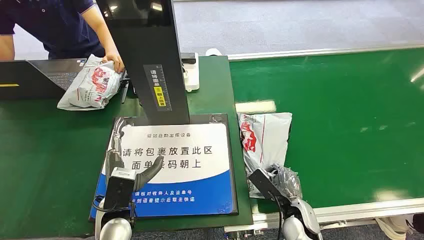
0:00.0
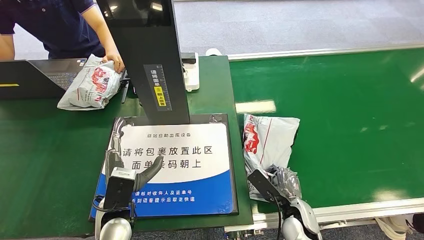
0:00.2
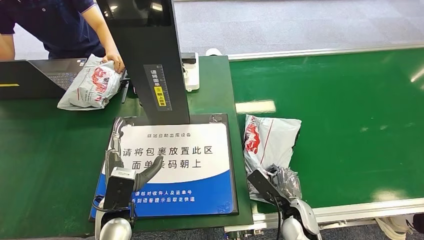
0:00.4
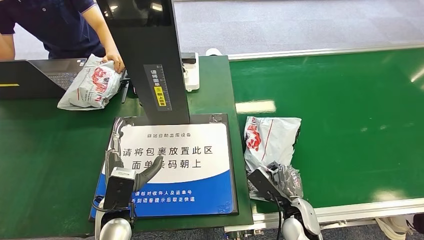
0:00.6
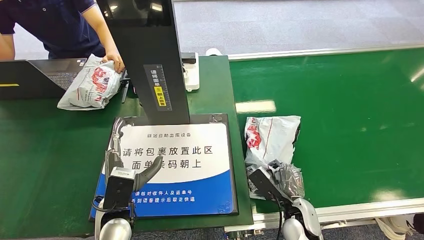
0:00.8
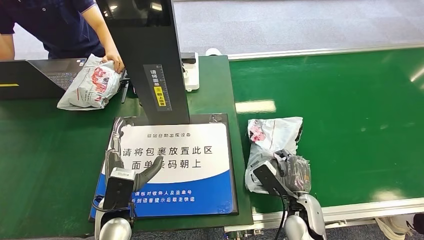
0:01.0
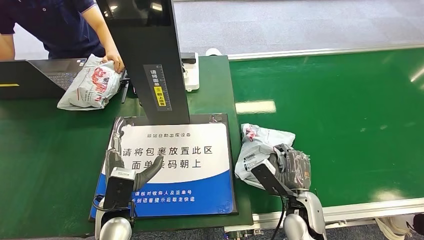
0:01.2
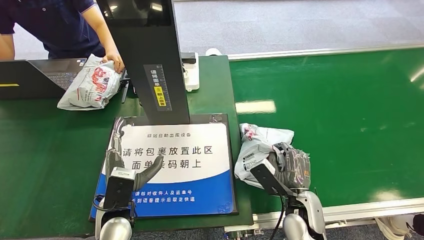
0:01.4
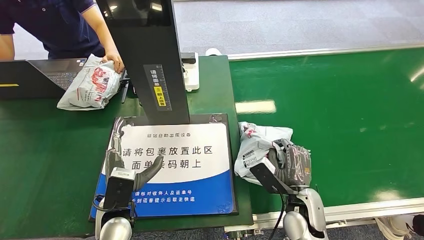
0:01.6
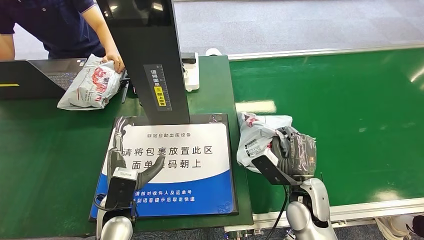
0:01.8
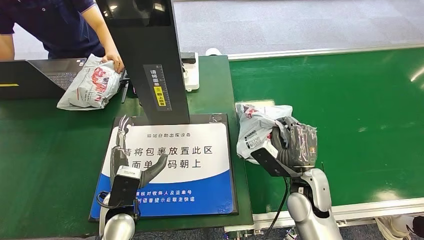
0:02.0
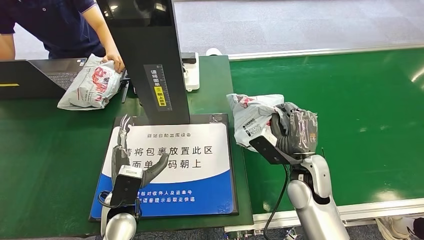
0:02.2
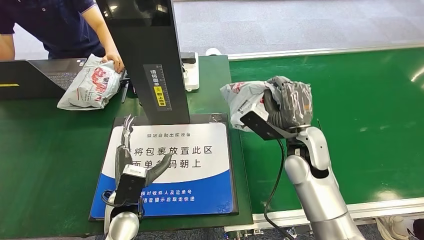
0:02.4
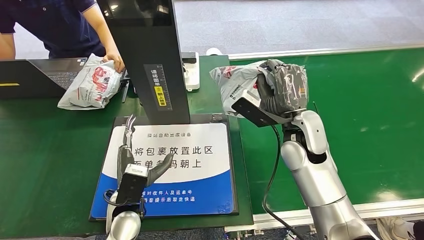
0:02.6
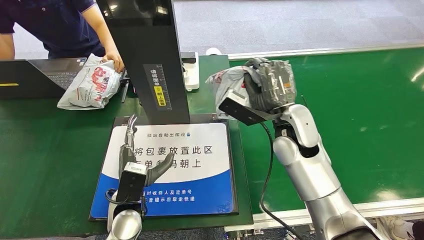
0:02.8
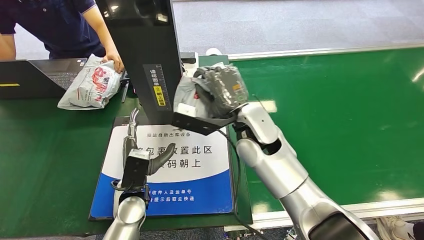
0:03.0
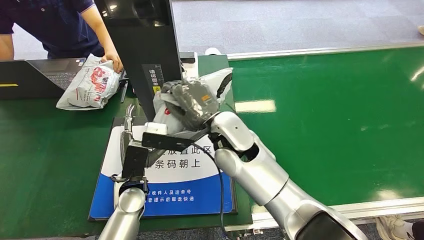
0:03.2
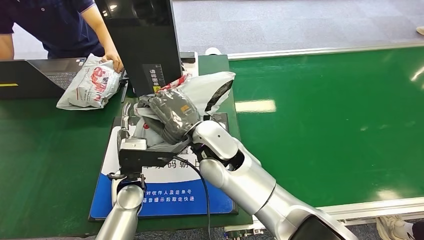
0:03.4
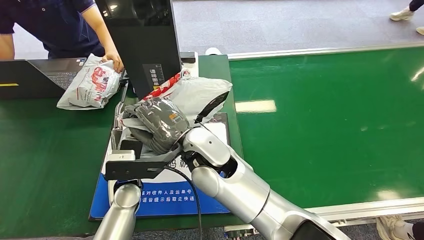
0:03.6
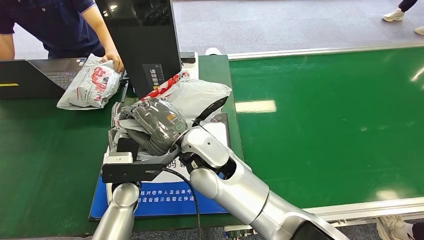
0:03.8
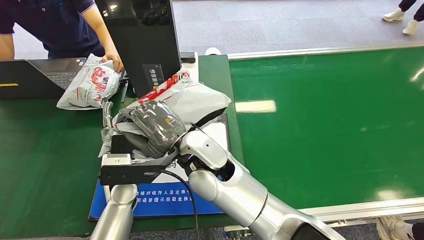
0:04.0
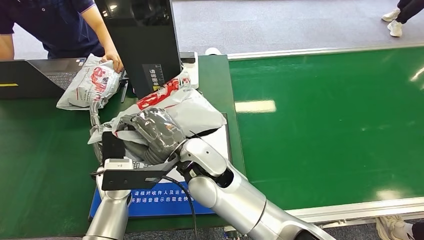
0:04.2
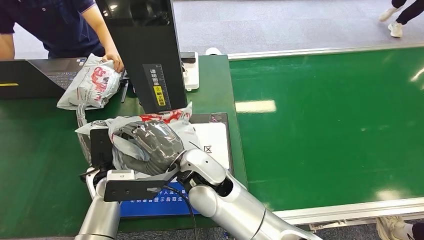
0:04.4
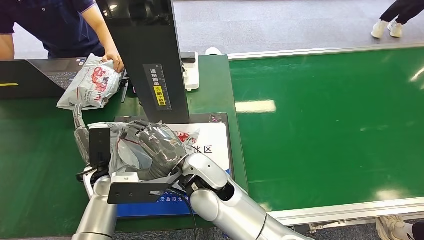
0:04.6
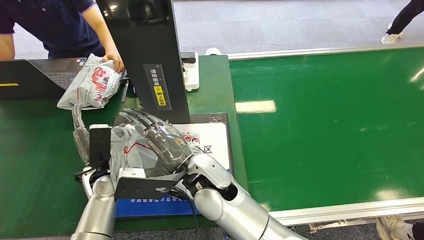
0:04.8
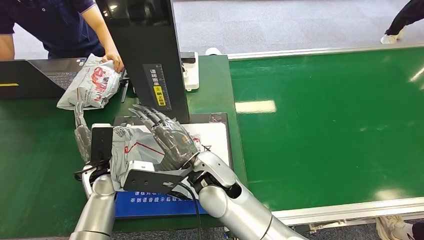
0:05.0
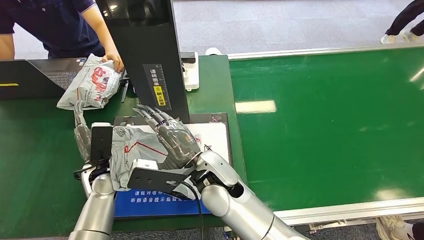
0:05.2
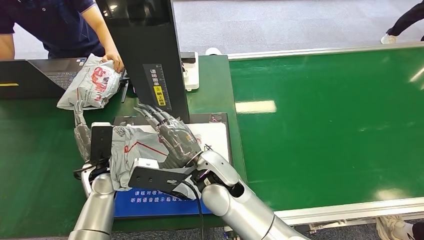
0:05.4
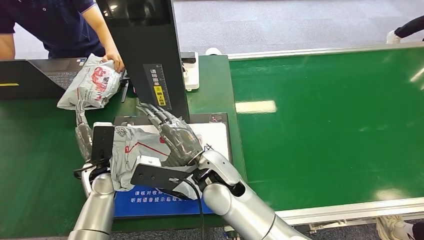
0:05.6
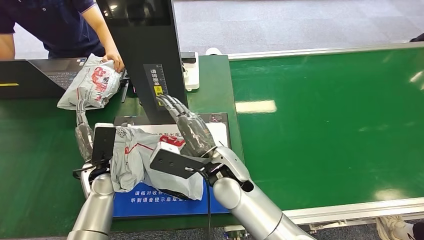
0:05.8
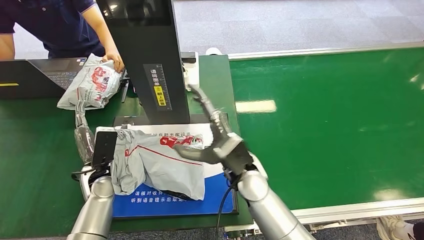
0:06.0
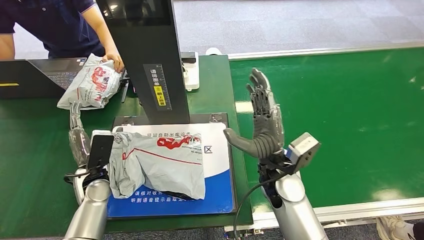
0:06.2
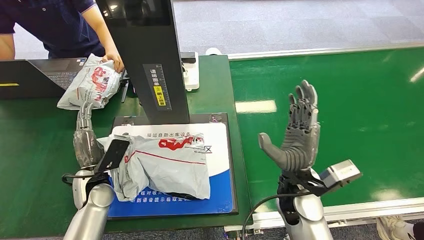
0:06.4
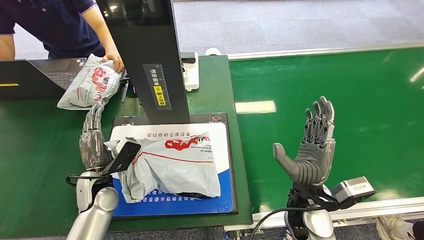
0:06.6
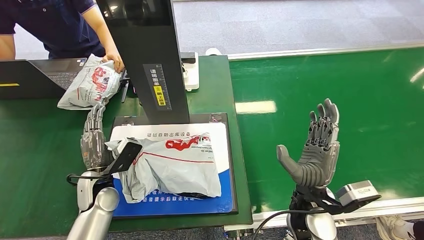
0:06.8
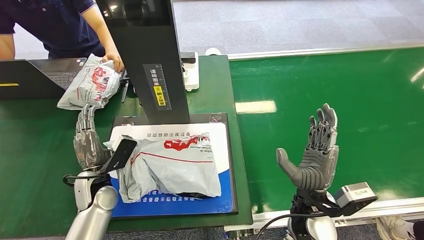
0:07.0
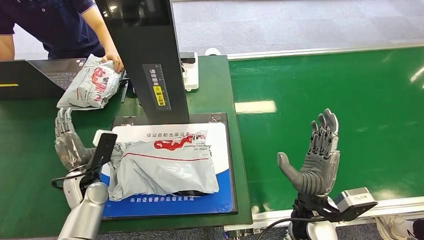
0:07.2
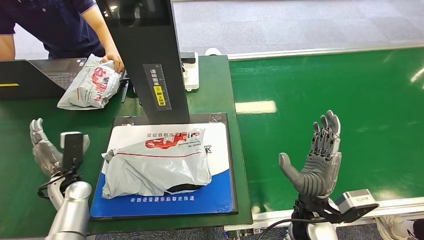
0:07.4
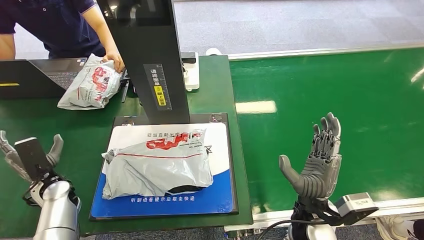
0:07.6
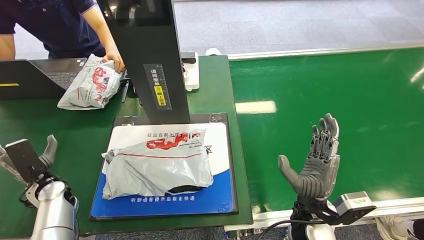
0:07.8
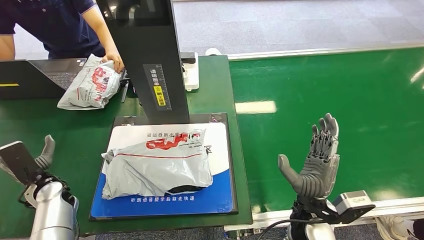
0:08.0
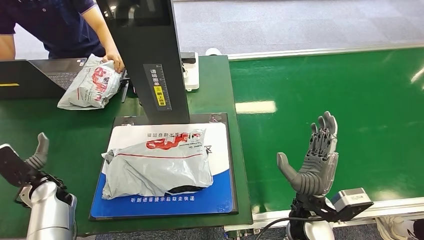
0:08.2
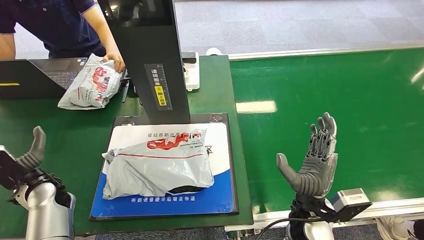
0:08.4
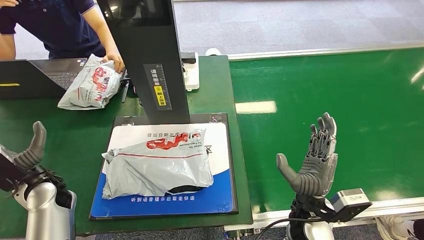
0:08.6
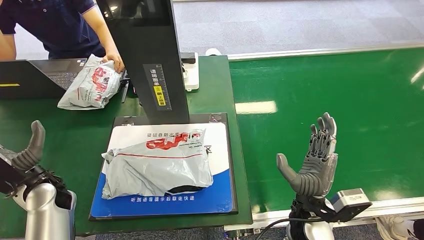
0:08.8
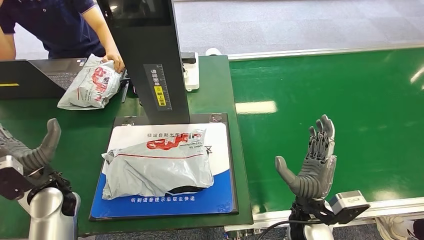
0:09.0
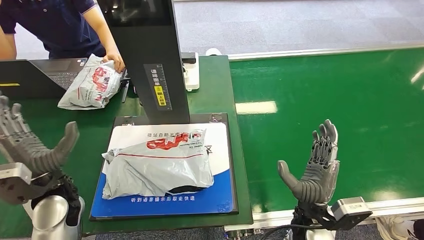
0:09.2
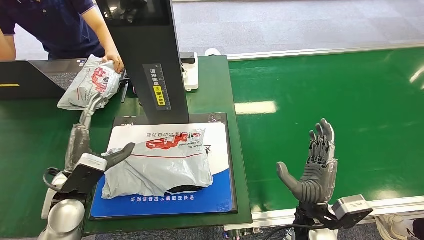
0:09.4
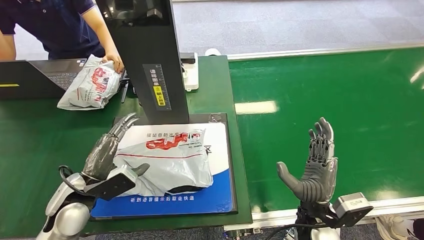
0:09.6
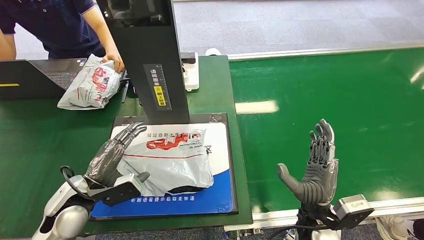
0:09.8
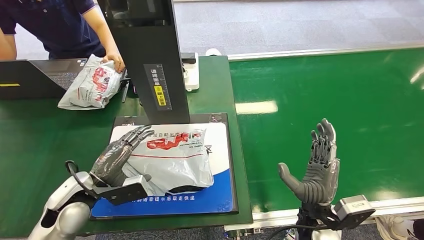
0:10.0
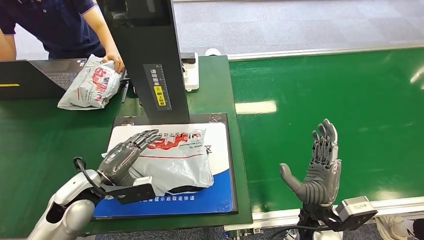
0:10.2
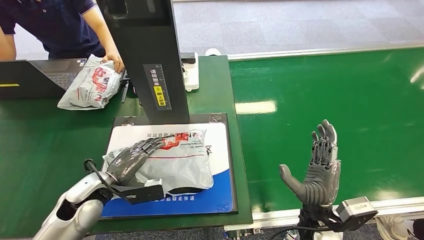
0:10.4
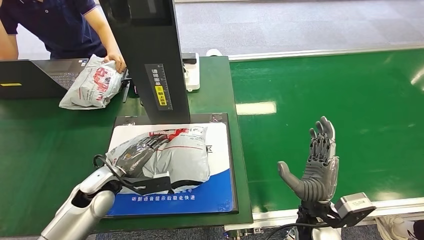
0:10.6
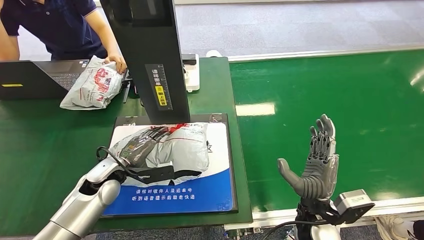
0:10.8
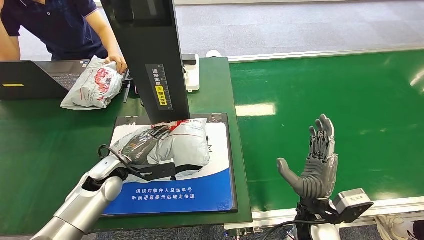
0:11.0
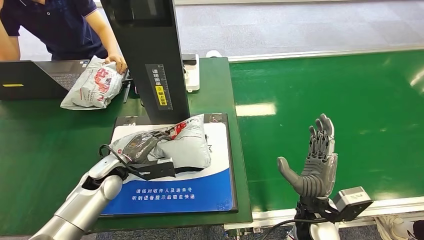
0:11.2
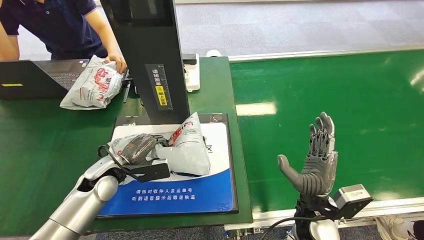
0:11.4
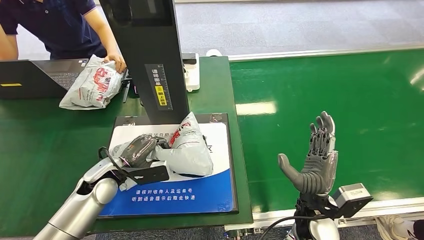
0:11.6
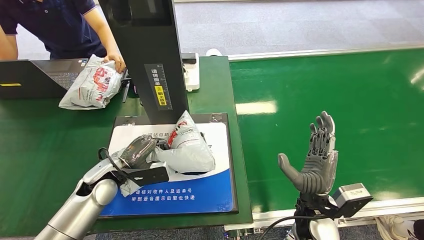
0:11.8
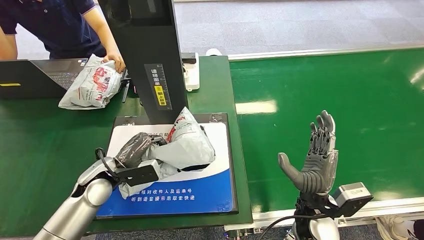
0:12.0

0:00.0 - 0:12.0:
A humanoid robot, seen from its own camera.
Task of the whole recording: Weigh the package on the weighing device and place it in the left basket.
Step, 0:00.0 - 0:01.8: Pick up the package from the conveyor belt.
Step, 0:02.0 - 0:06.6: Place the package onto the inbound machine.
0:04.4 - 0:06.0: The right hand is displaced to the right by roughly 10 cm.
0:07.6 - 0:09.0: The left hand heads upward, covering roughly 10 cm.
0:09.0 - 0:10.4: The left hand moves to the right, approximately 5 cm.

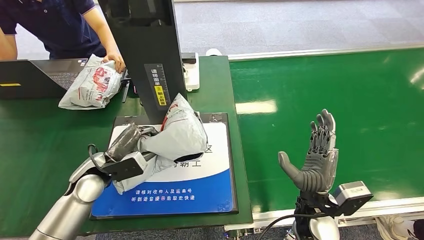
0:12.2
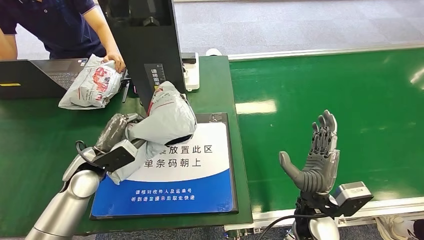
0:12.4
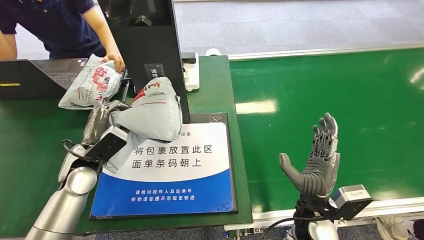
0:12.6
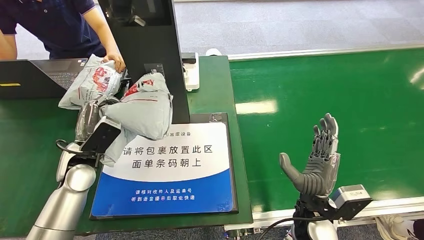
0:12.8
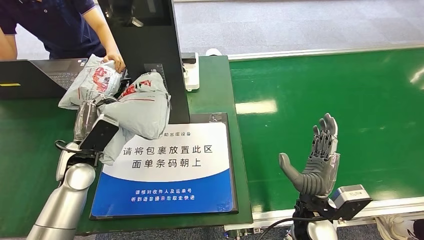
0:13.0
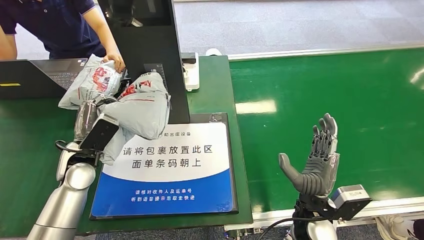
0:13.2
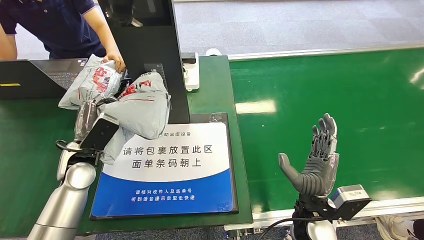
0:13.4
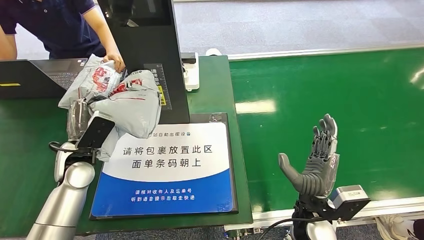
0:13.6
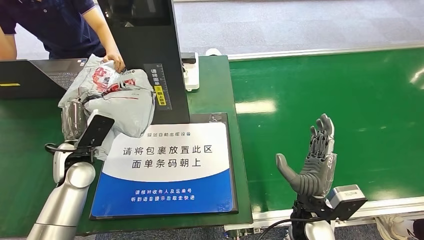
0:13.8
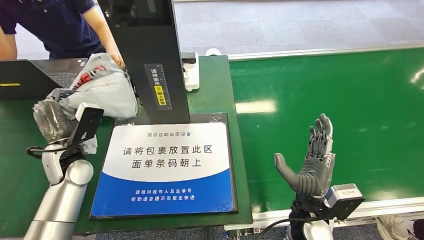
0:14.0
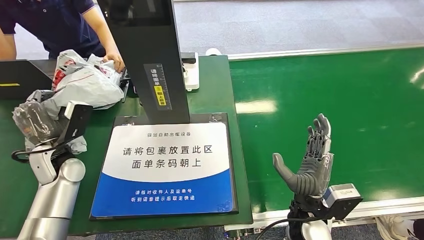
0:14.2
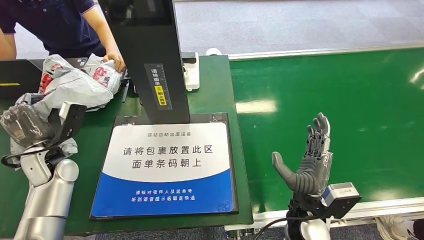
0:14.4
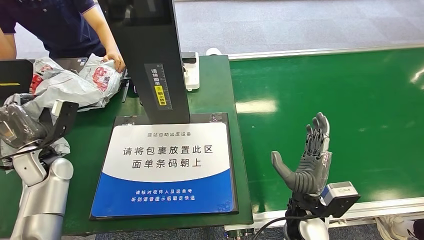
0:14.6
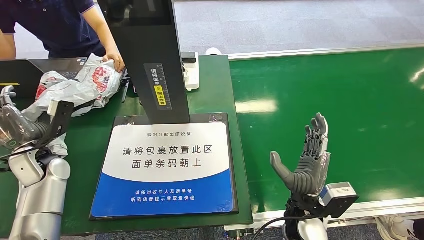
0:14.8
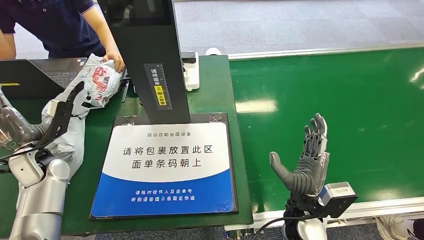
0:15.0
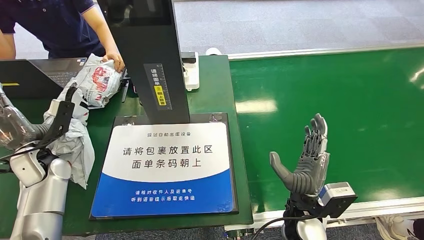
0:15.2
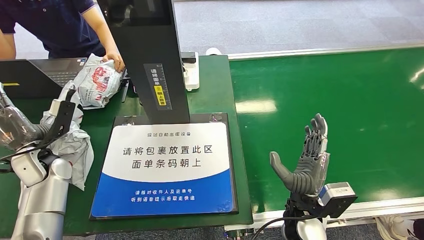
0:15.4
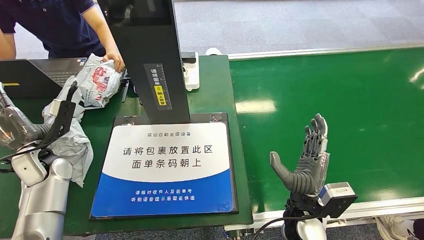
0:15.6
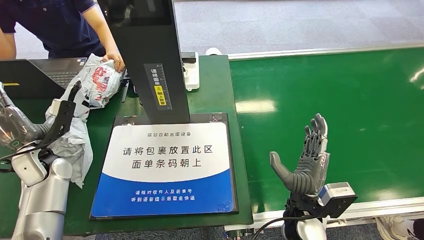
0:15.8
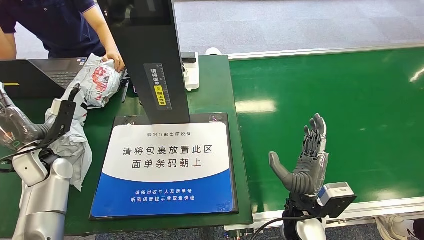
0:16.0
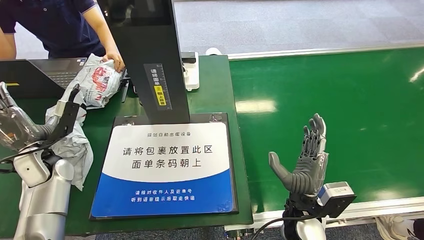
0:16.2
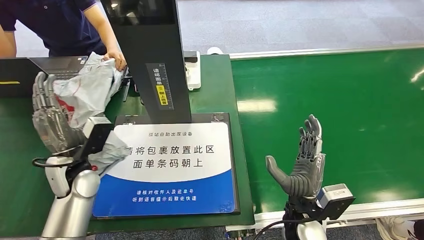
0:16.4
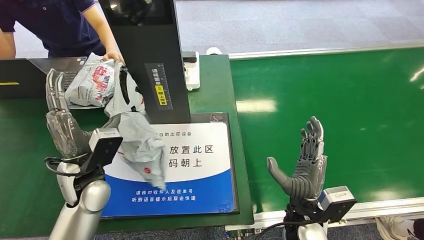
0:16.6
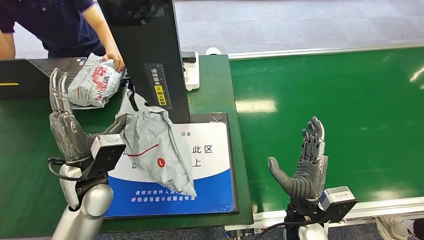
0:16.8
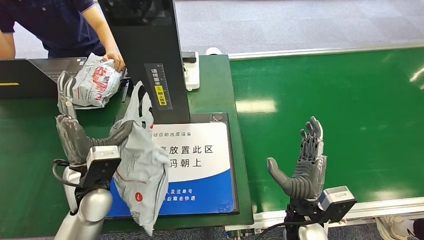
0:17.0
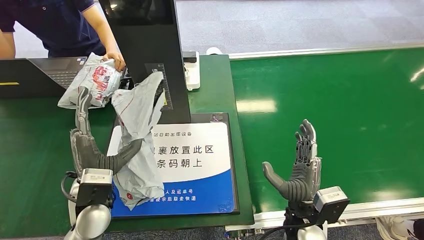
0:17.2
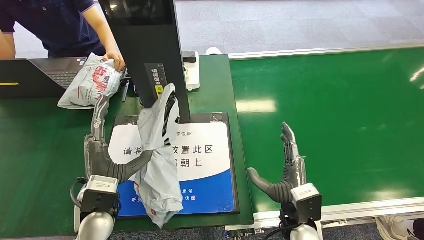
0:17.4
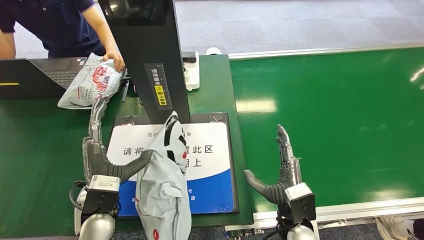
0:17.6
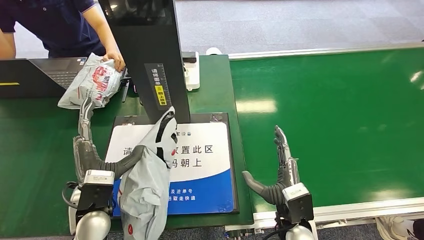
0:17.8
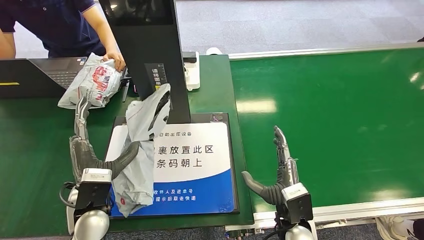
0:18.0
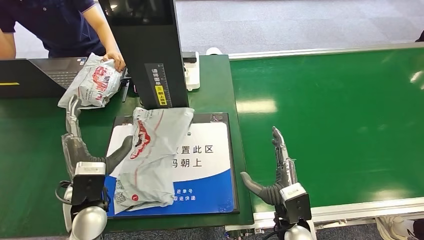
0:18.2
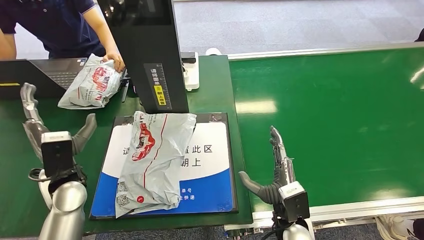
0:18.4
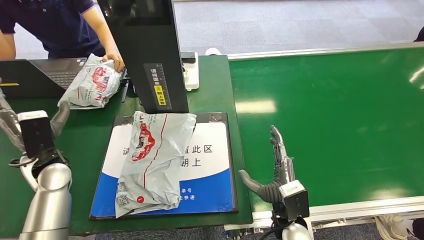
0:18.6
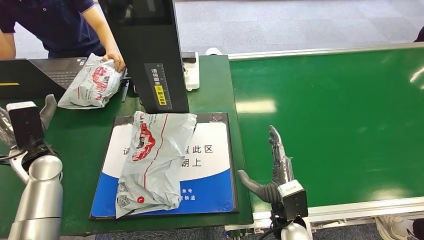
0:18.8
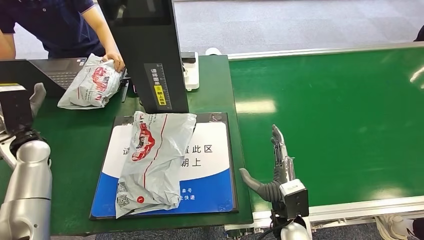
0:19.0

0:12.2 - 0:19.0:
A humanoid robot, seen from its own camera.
Task of the whole recording: Weigh the package on the weighing device and place it in the left basket.
Step, 0:13.0 - 0:16.0: Place the package into the parcel locker.
0:13.6 - 0:15.0: The left hand moves to the left, approximately 10 cm.
0:15.0 - 0:16.2: Neither hand changes place.
